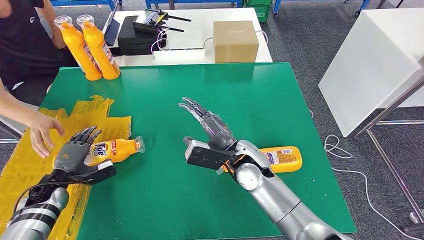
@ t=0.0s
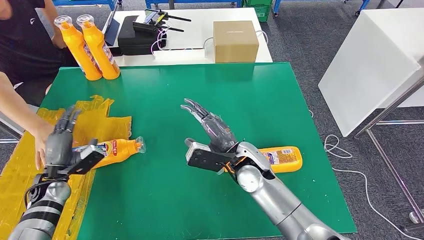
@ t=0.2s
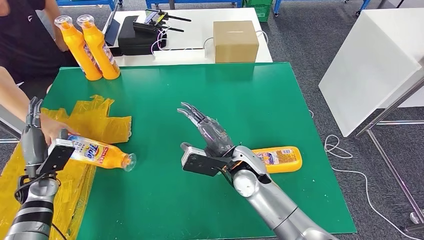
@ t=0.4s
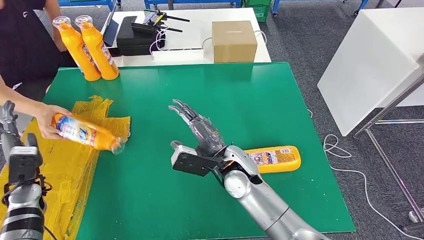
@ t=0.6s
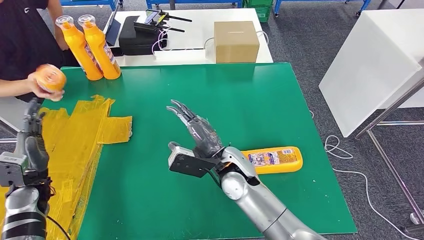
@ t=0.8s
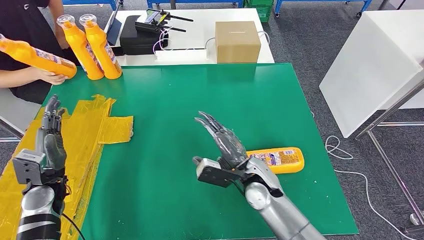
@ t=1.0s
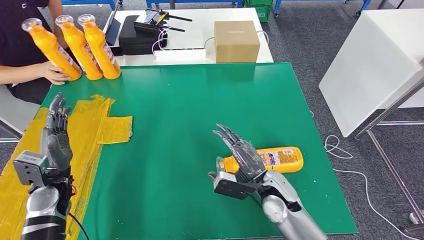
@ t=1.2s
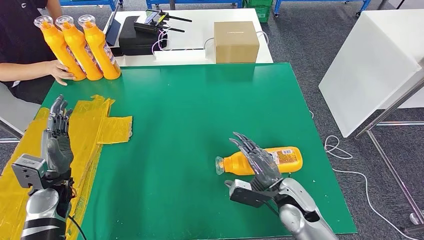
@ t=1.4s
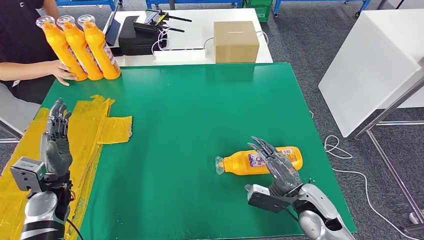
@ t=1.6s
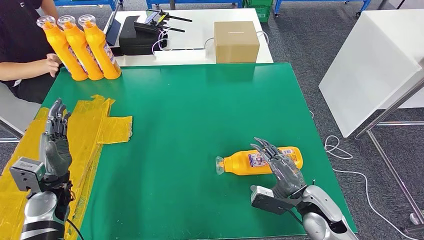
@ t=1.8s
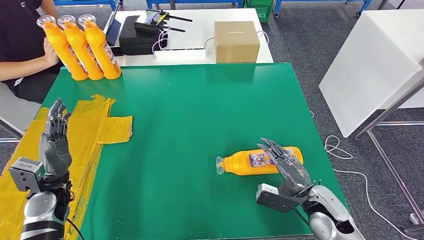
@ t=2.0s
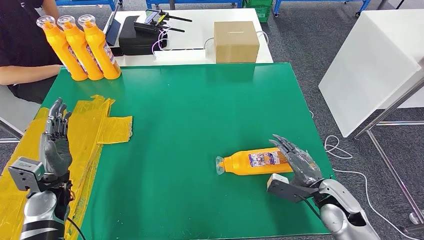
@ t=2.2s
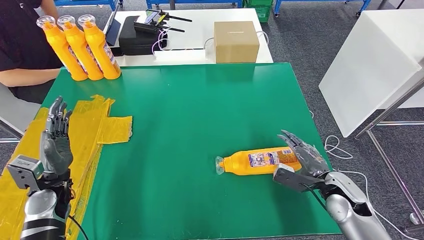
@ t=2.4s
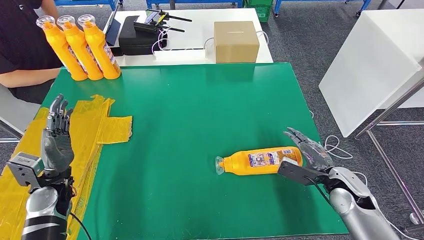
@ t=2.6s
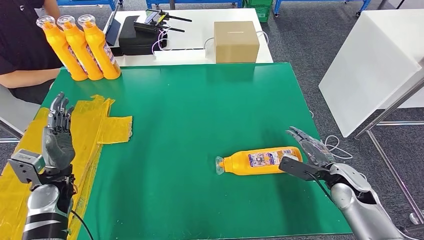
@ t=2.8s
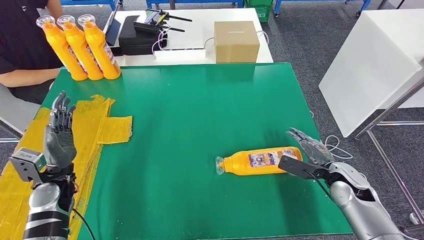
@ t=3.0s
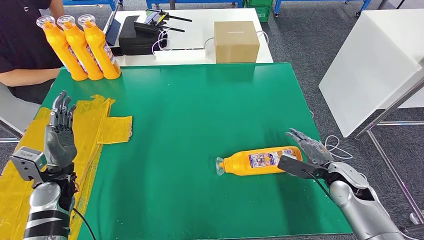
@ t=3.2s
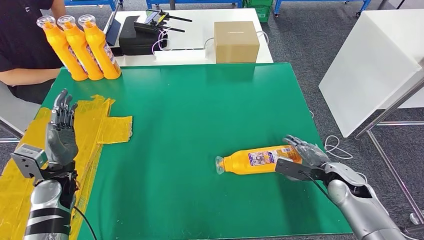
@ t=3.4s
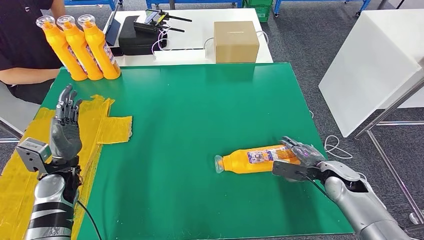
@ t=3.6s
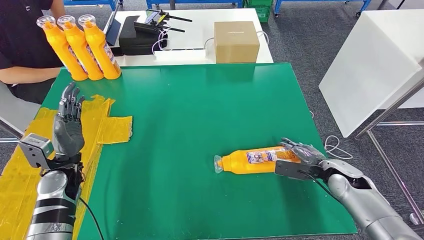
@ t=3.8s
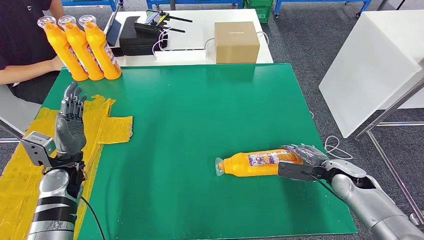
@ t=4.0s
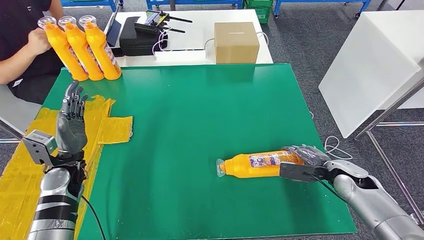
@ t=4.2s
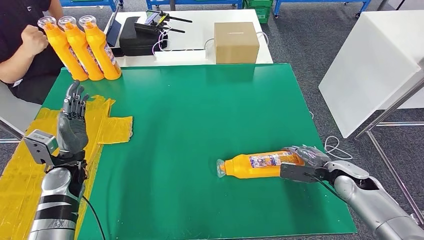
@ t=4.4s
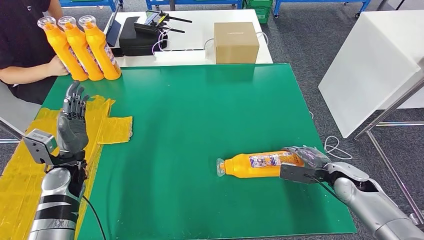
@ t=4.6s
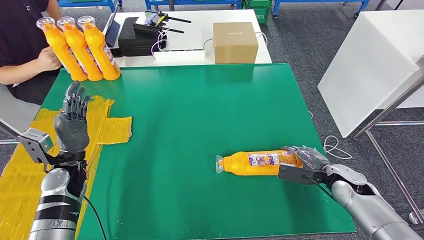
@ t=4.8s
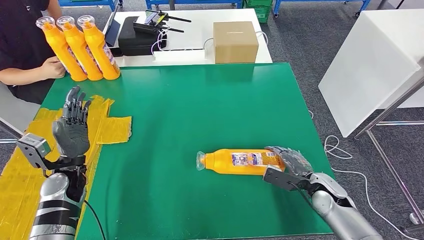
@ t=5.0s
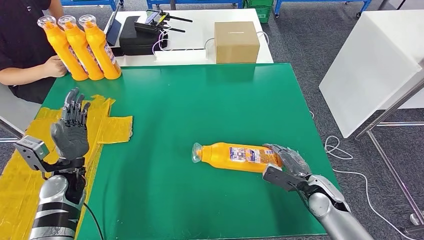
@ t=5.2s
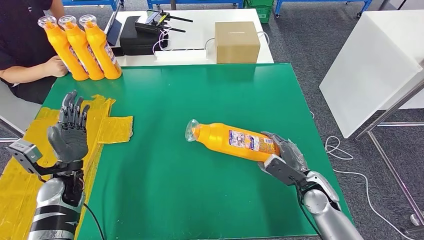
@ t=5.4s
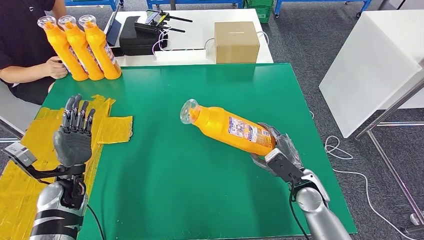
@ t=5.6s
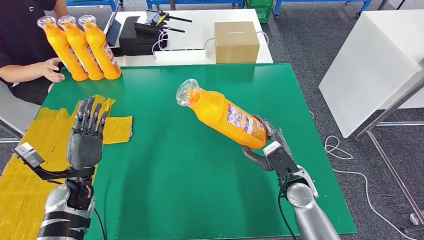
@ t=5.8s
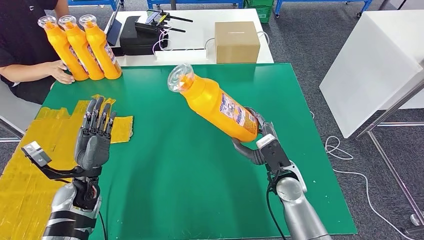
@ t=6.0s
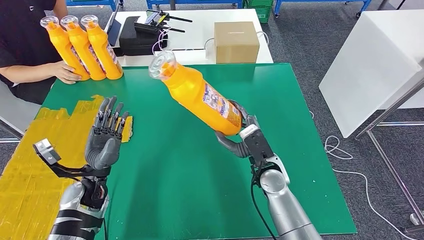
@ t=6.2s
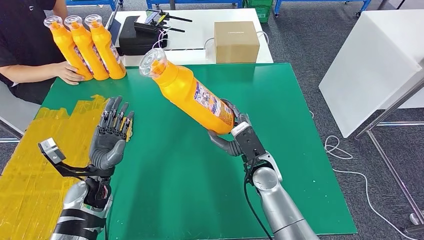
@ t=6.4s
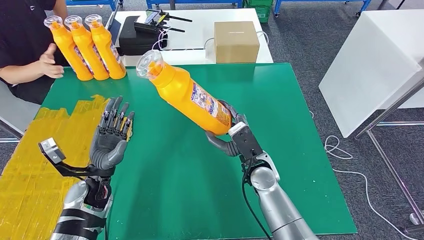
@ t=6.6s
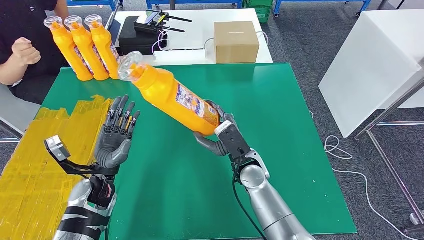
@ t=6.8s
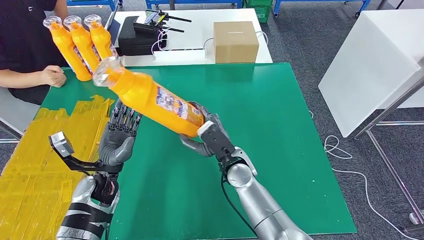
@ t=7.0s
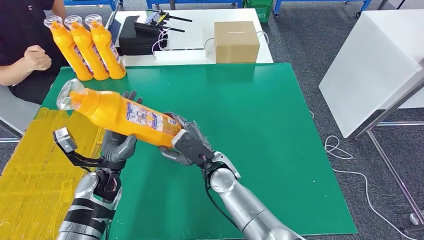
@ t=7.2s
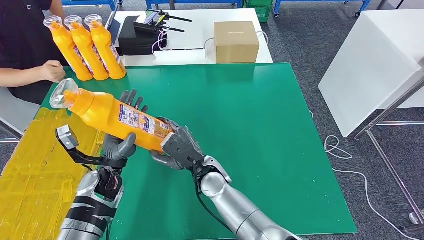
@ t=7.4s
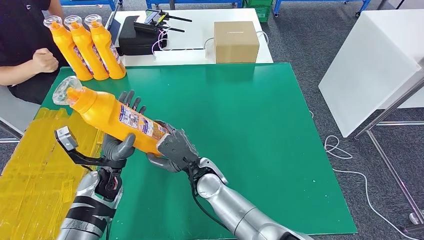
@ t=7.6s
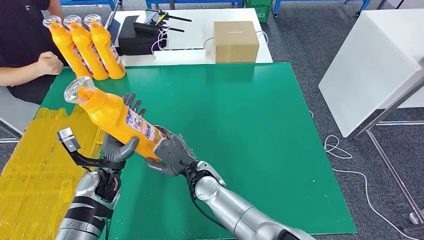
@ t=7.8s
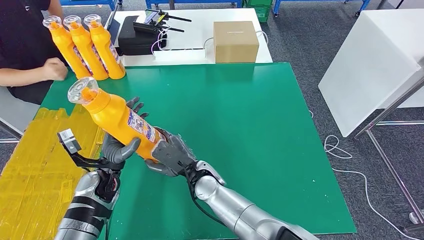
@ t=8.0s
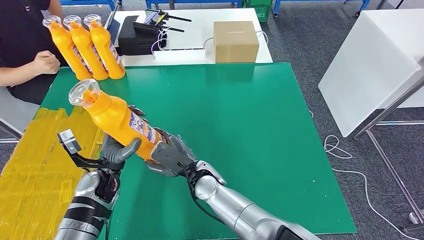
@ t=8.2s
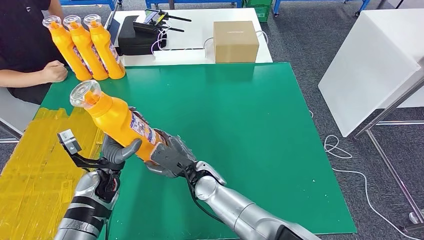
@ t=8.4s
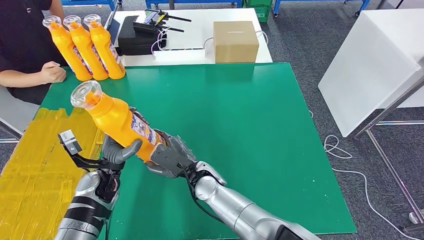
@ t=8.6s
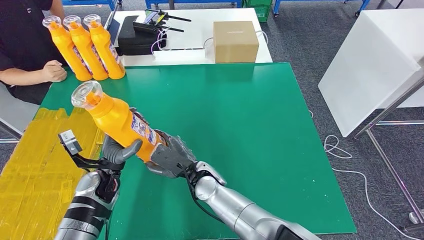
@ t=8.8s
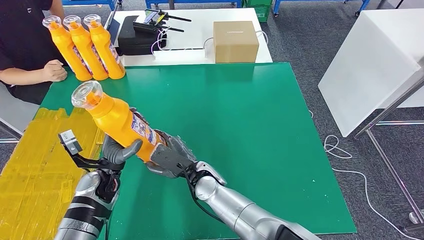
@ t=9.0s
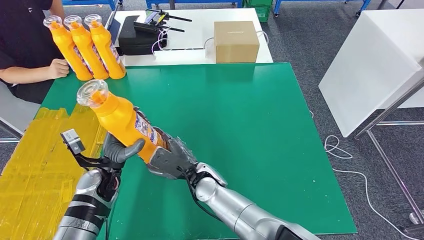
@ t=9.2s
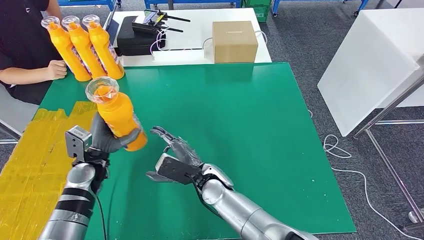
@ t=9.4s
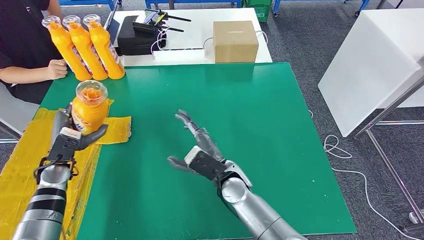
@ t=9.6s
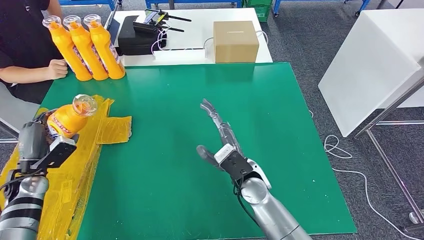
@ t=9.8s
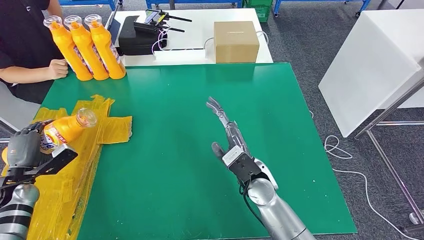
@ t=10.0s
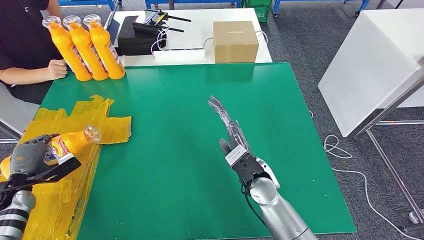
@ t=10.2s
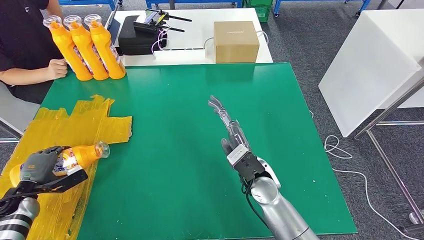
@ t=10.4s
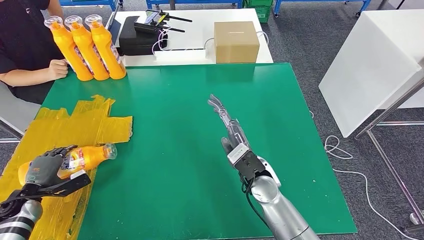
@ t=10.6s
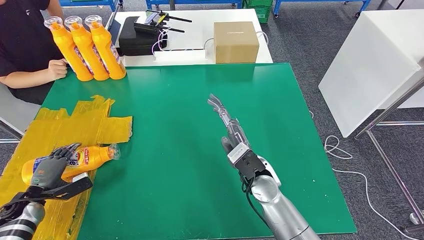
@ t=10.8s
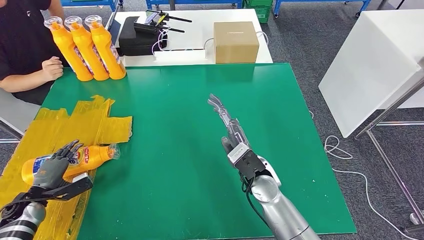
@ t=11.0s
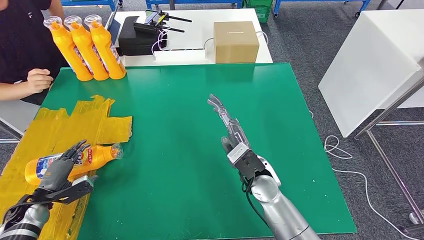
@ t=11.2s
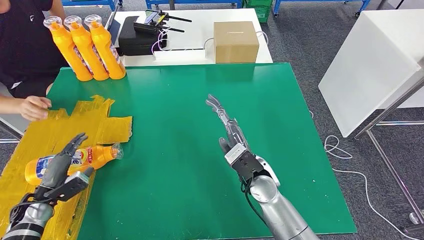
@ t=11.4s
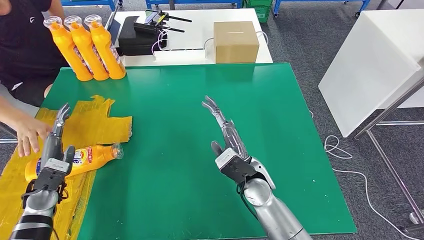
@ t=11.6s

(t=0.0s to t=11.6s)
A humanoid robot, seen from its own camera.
Step, t=0.4s - t=7.6s: Pick up the fast-moving consumer goods bottle from the table.
Step, t=7.8s - t=11.6s: Flip the fast-moving consumer goods bottle to the front side.
t=1.4s - t=2.8s: The right hand is displaced to the right by roughly 15 cm.
t=7.2s - t=8.8s: The right hand moves roughly 5 cm.
t=8.8s - t=10.2s: The left hand travels to the left by approximately 25 cm. The right hand moves to the right, some 15 cm.
t=10.2s - t=11.6s: The left hand is displaced to the right by roughly 10 cm.
